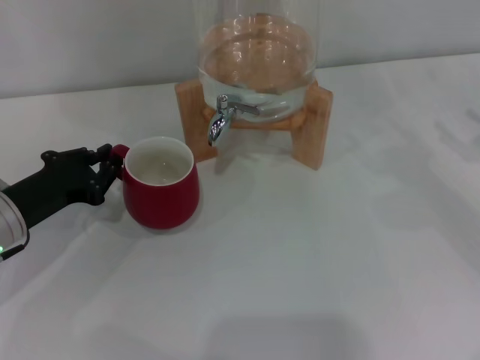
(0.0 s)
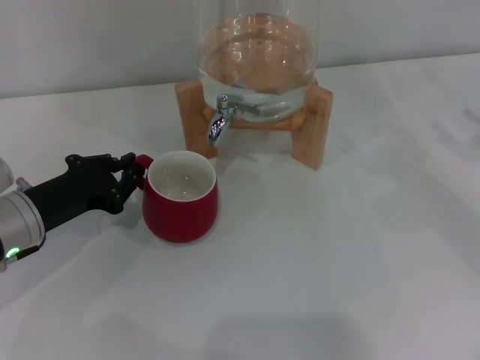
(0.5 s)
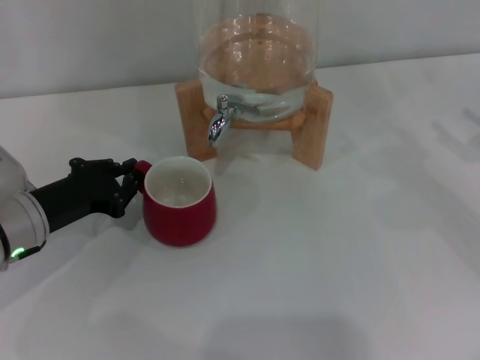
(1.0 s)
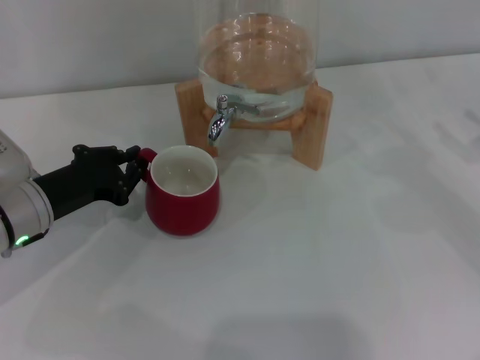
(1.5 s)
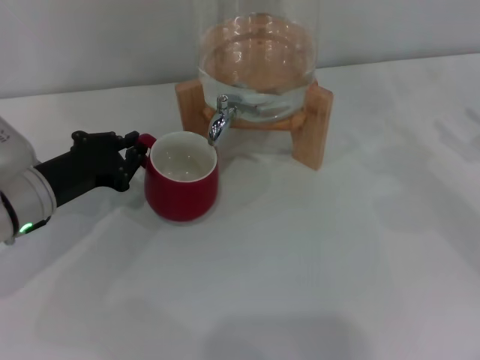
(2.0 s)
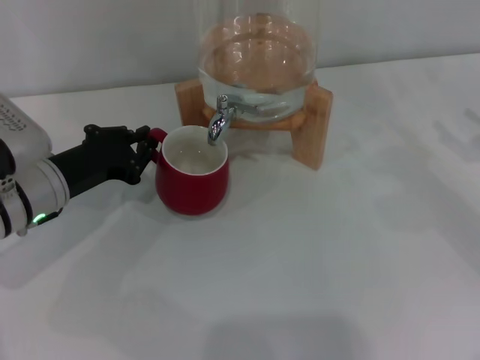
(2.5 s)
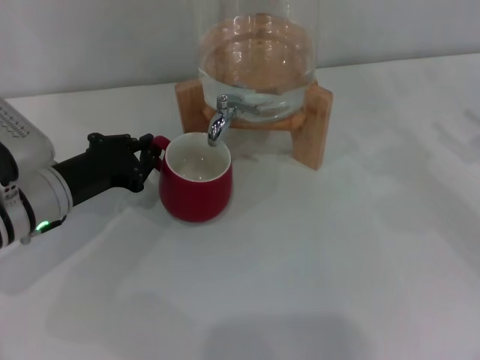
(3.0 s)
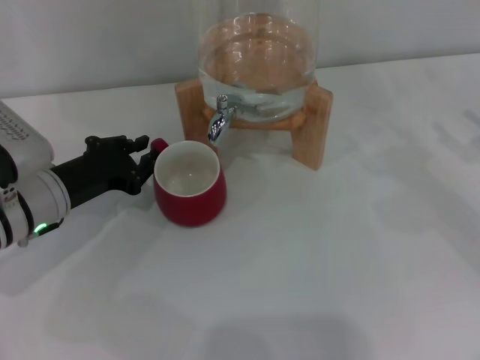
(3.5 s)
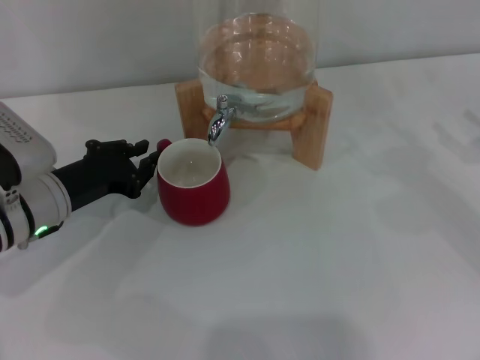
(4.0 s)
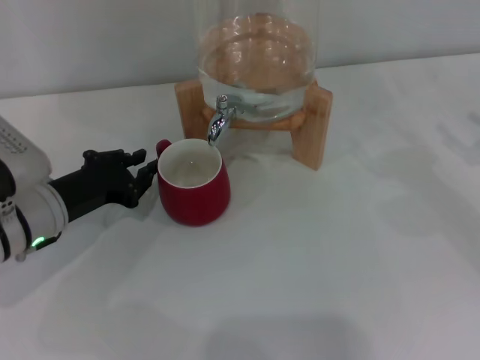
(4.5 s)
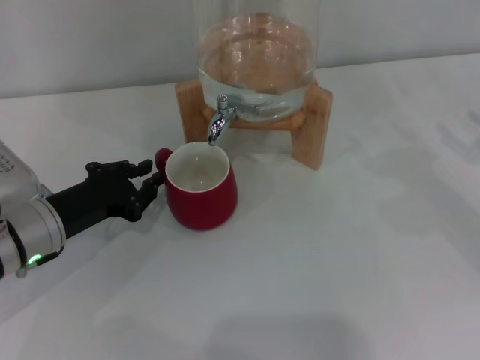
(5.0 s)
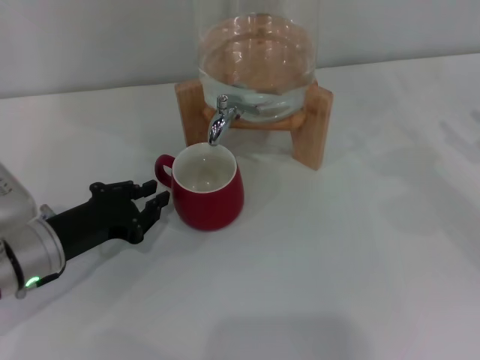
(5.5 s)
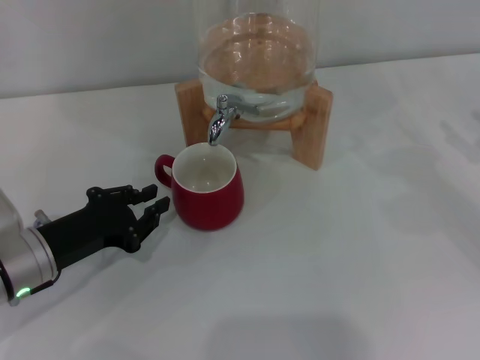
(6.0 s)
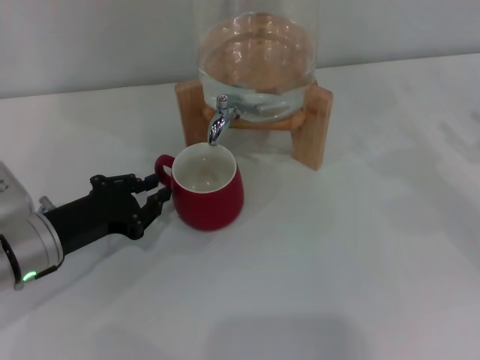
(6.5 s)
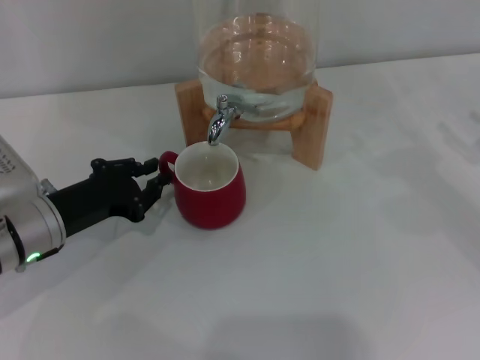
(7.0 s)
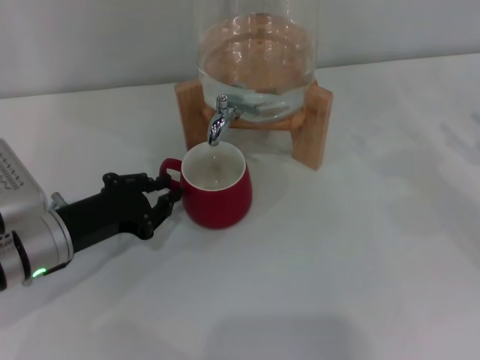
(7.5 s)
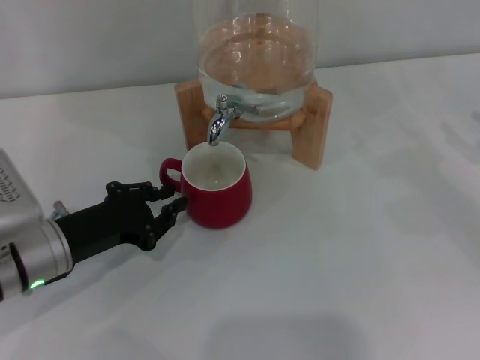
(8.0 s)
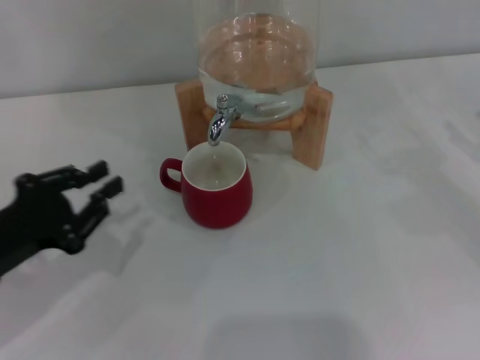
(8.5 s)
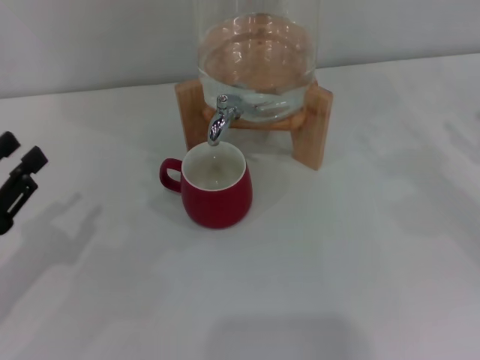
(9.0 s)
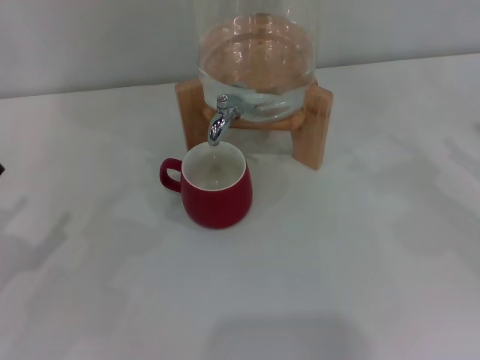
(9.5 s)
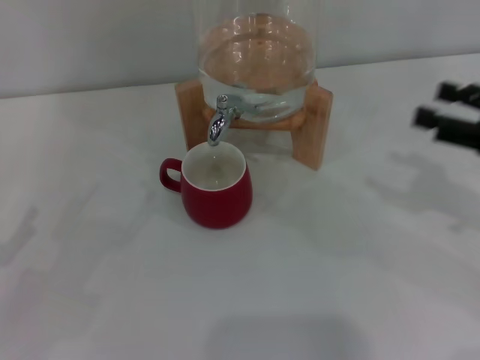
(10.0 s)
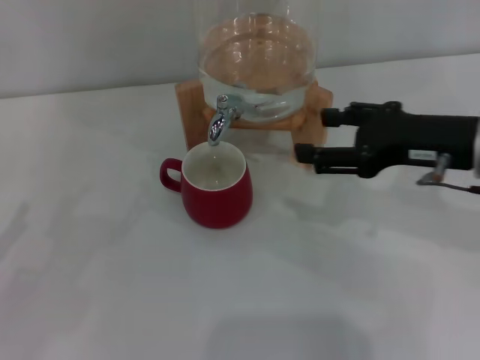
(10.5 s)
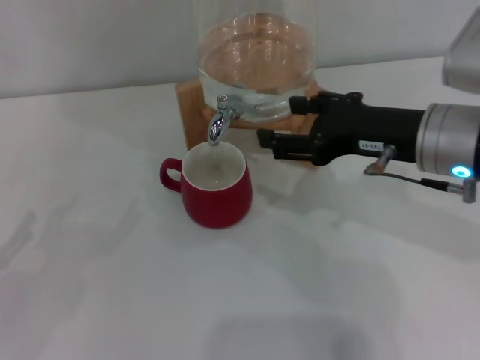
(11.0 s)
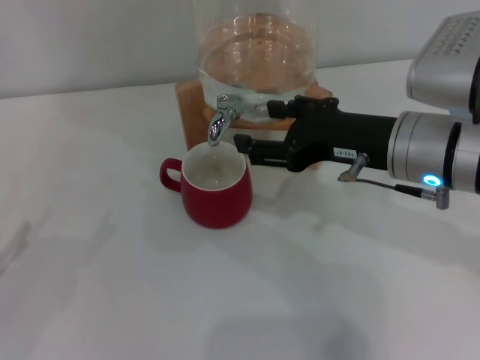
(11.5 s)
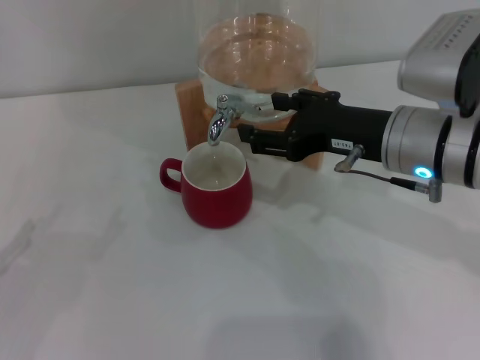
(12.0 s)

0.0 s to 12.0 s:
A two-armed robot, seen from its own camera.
Task of the whole recording: the left gripper pick up the red cup and place it horizontally under the faucet, the right gripper turn on the faucet to fill the cup, and then turn off the faucet.
Step, 0.0 to 4.5 s: Move the cup beneath the water dispenser nozzle with the left gripper.
0.0 to 4.0 s: The grippers stay close to where they were, moving slightly.
4.0 to 6.0 s: The left gripper travels backward by some 5 cm.
6.0 to 8.0 s: The grippers make only small movements.
8.0 to 10.0 s: The right gripper heads to the left, covering about 5 cm; the left gripper is displaced to the left and backward by approximately 15 cm, and opens.
10.0 to 12.0 s: The right gripper shifts about 15 cm to the left.

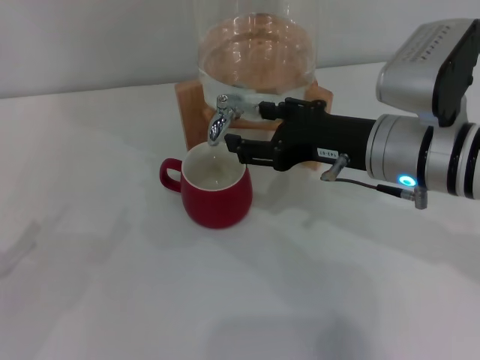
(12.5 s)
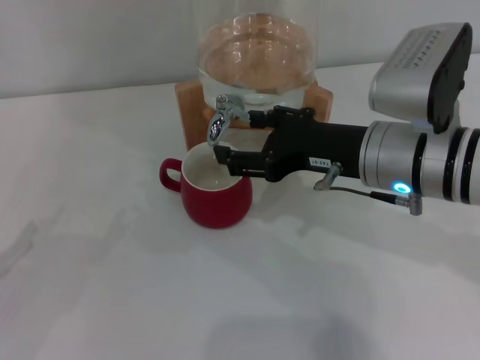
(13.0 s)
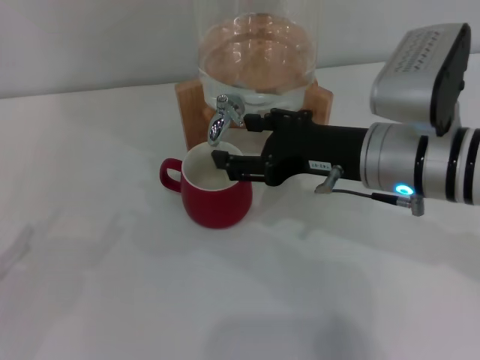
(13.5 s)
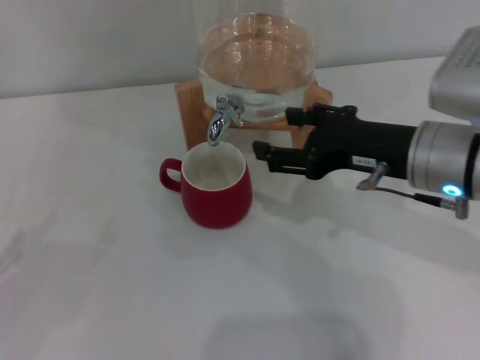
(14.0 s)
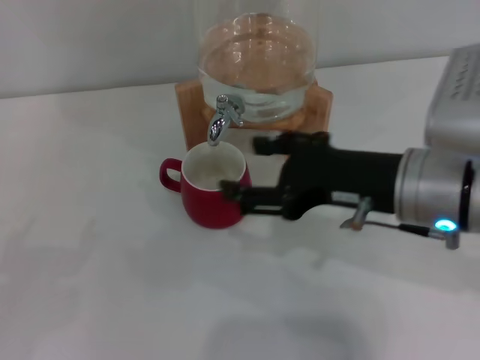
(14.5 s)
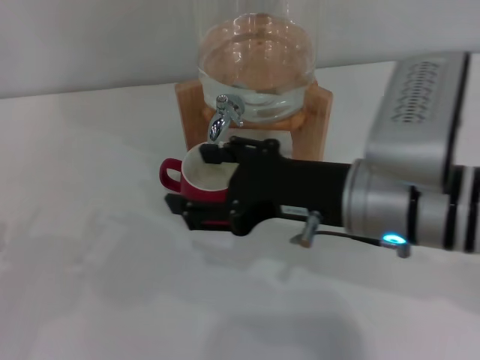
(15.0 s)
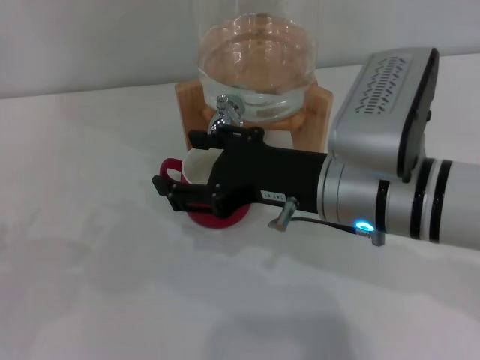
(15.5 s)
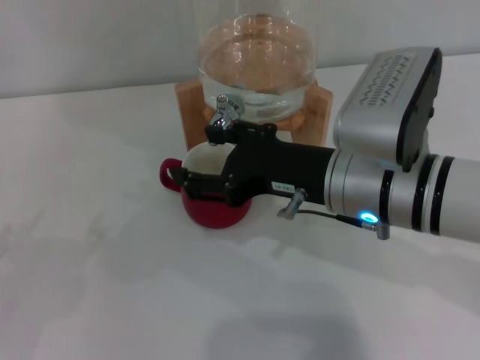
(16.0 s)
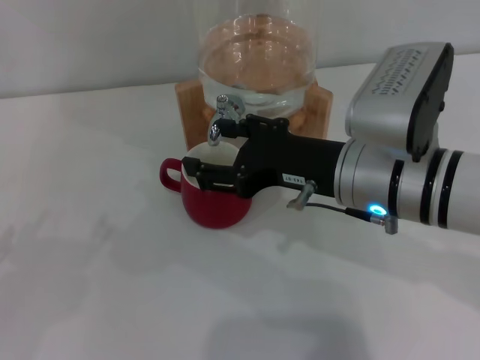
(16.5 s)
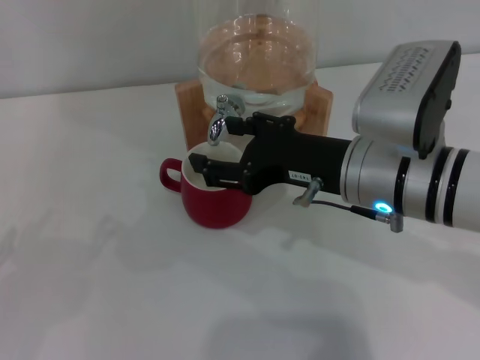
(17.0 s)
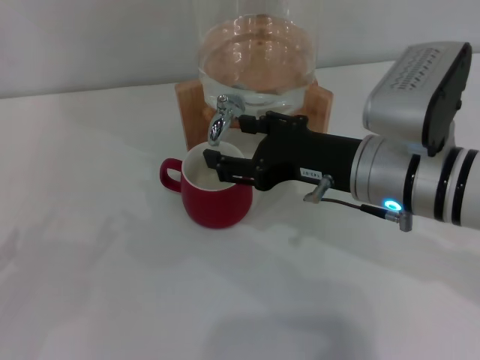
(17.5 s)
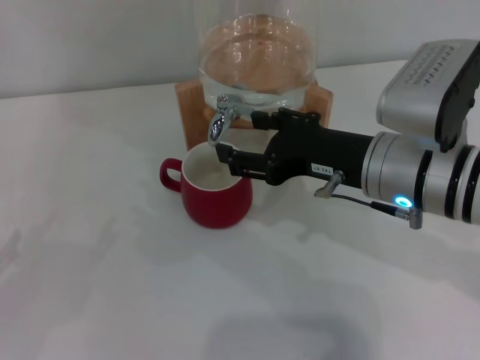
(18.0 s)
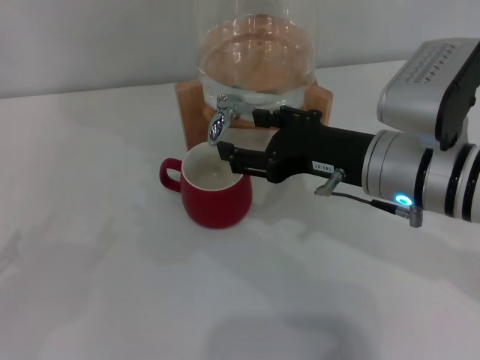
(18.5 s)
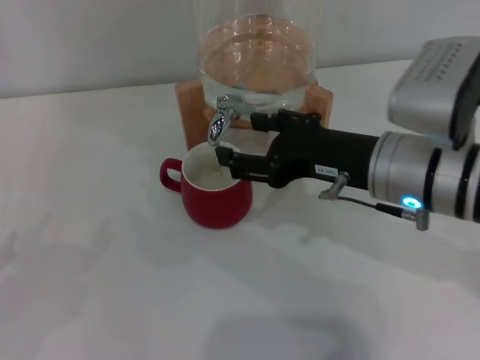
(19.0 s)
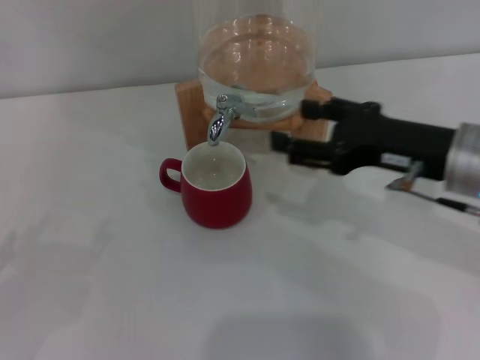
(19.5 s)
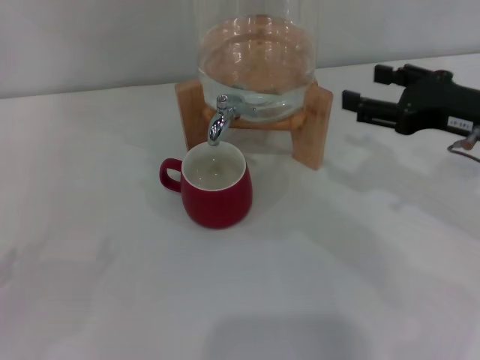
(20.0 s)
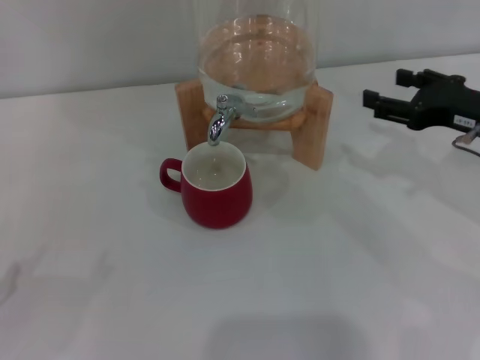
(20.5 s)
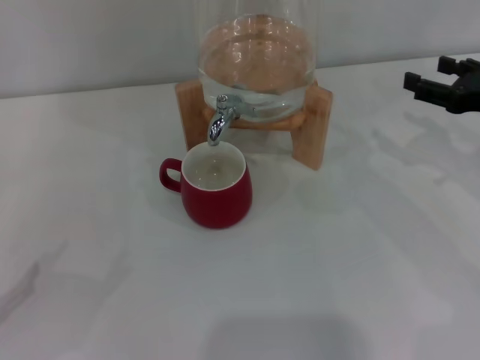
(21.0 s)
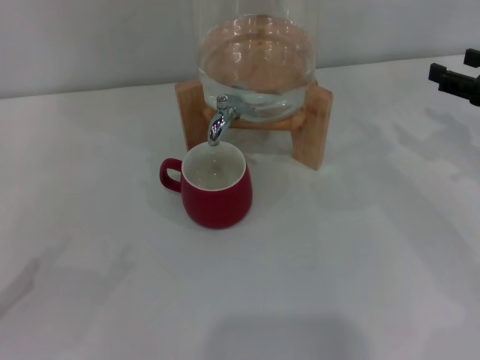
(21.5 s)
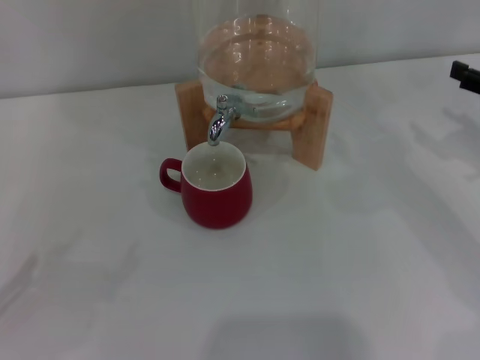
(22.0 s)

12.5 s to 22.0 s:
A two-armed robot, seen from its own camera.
Task of the whole recording: the left gripper pick up the red cup and place it horizontally under the faucet, the right gripper turn on the faucet to fill the cup, and then turn off the faucet.
Step, 14.0 to 19.0 s: Close the dispenser valve with the right gripper.
12.5 to 14.5 s: The right gripper moves about 5 cm.
14.5 to 18.0 s: There are only small adjustments of the grippers.
18.0 to 20.0 s: The right gripper is displaced to the right by roughly 10 cm.
20.0 to 22.0 s: The right gripper goes approximately 10 cm to the right.
